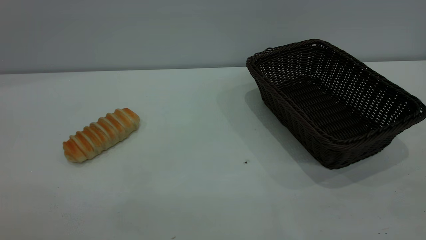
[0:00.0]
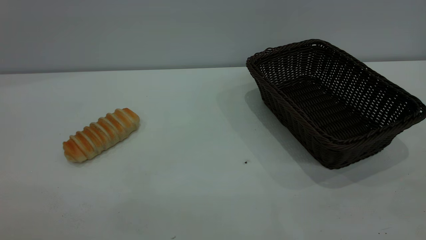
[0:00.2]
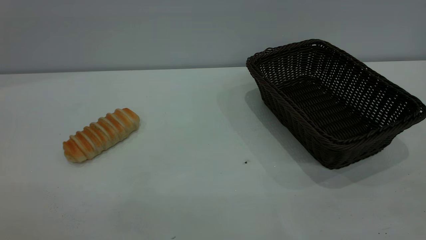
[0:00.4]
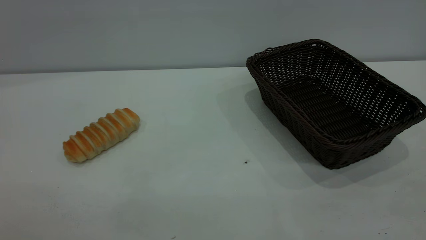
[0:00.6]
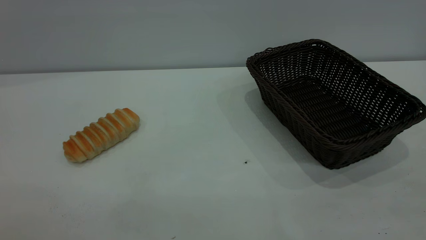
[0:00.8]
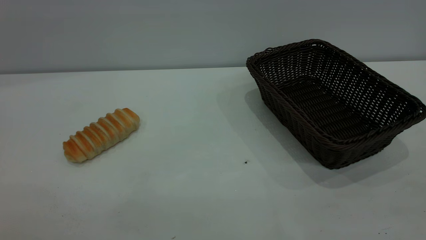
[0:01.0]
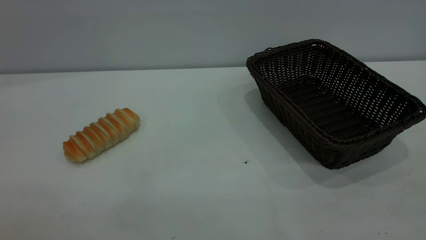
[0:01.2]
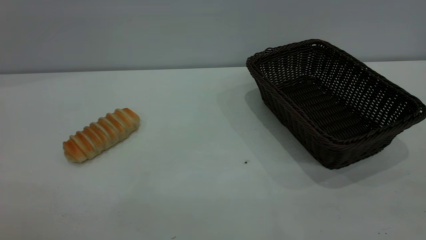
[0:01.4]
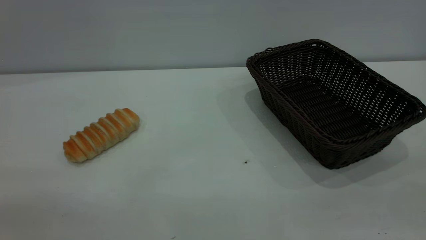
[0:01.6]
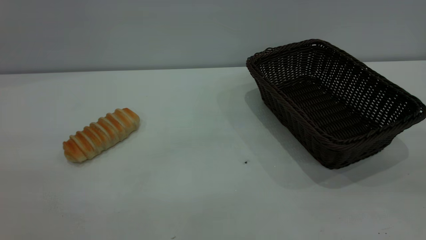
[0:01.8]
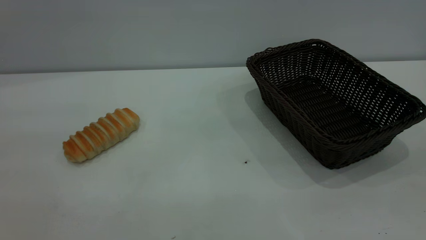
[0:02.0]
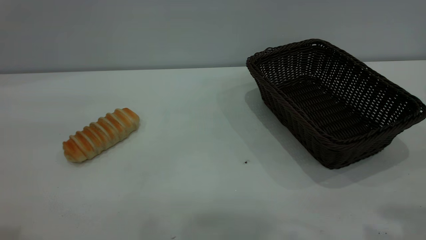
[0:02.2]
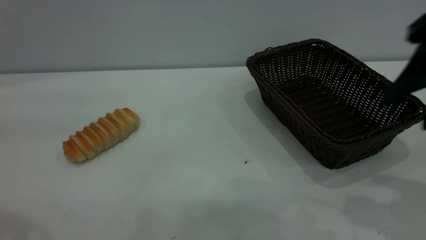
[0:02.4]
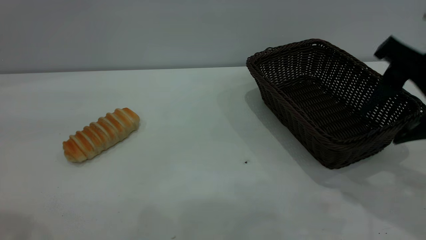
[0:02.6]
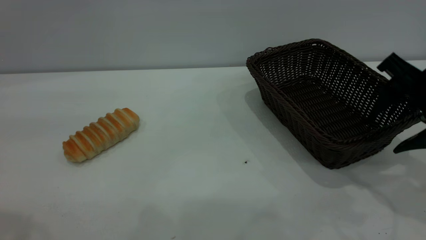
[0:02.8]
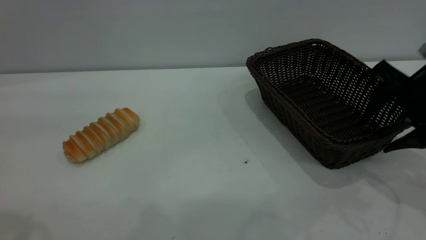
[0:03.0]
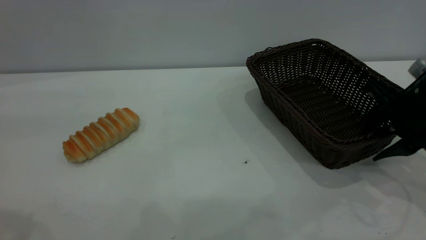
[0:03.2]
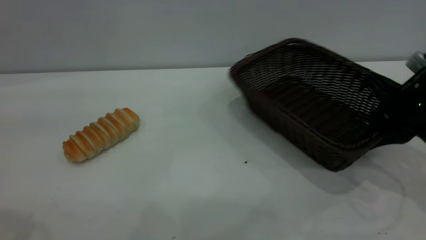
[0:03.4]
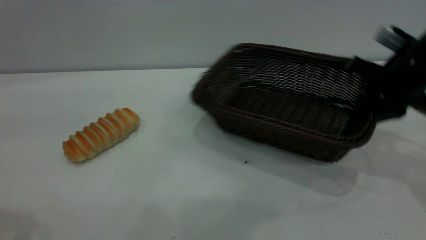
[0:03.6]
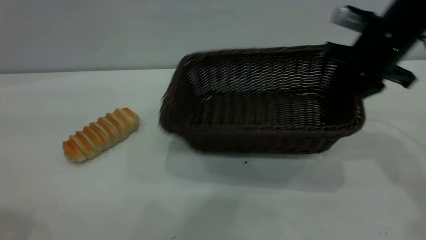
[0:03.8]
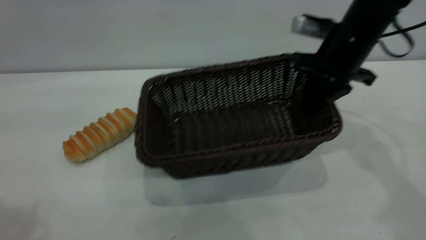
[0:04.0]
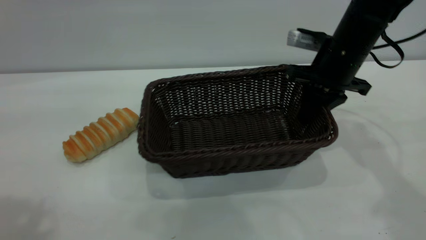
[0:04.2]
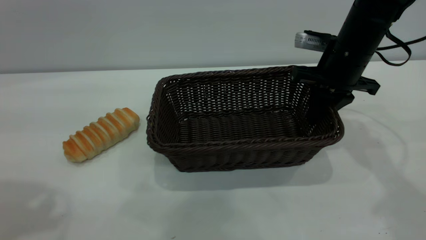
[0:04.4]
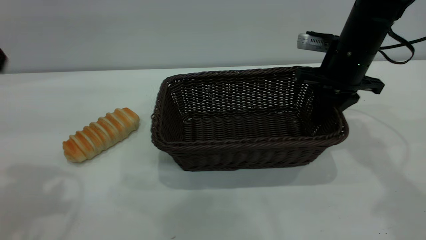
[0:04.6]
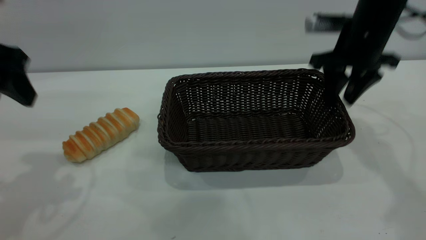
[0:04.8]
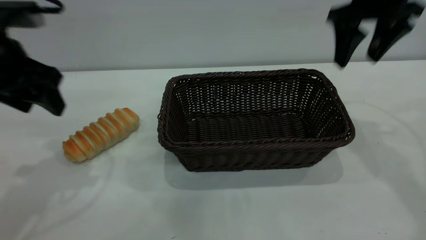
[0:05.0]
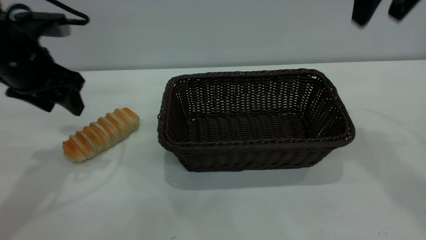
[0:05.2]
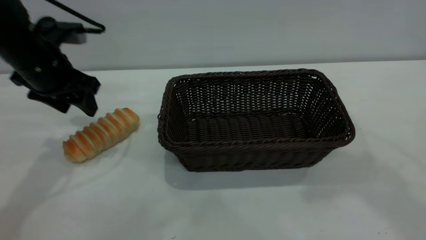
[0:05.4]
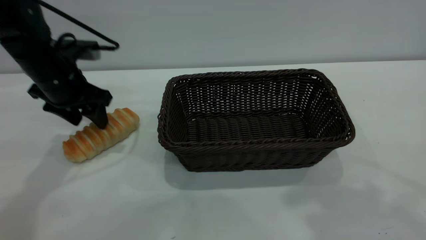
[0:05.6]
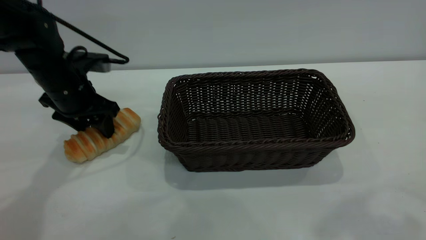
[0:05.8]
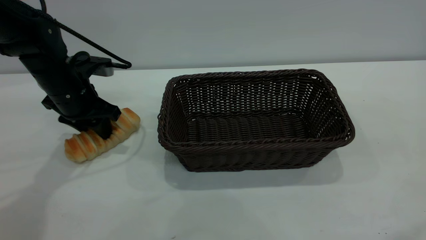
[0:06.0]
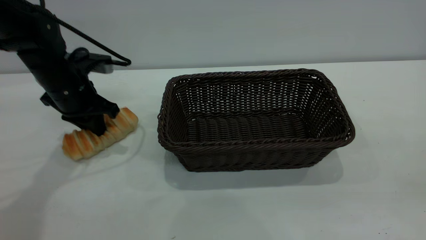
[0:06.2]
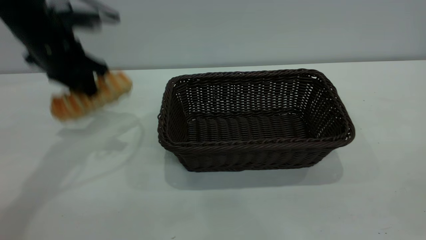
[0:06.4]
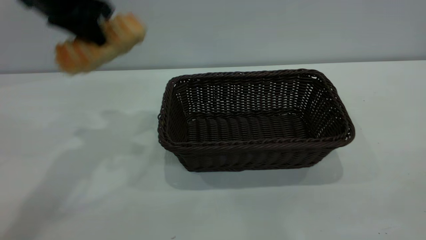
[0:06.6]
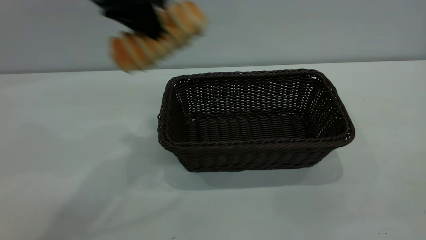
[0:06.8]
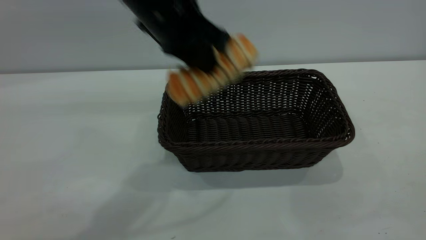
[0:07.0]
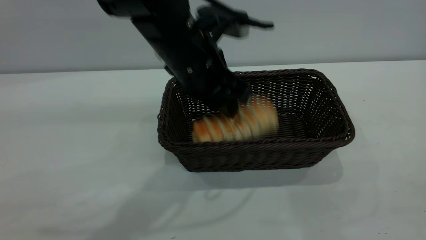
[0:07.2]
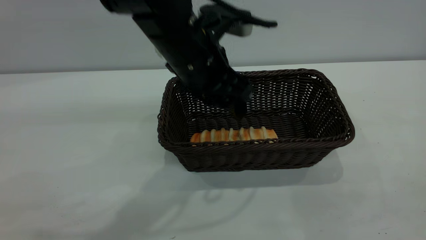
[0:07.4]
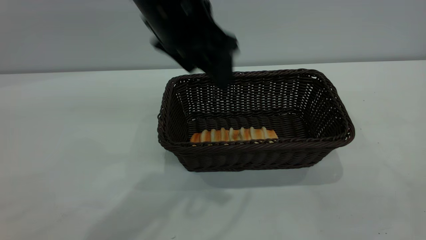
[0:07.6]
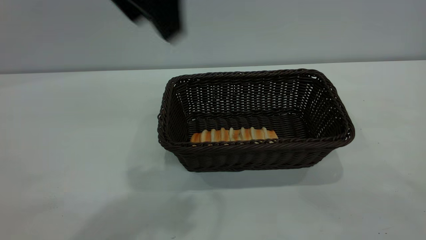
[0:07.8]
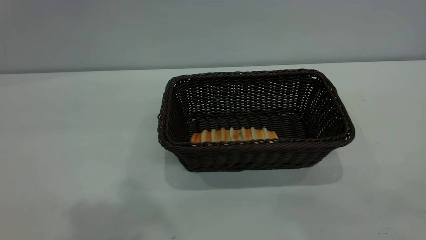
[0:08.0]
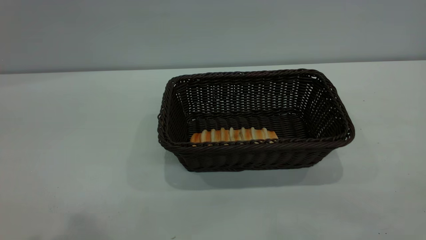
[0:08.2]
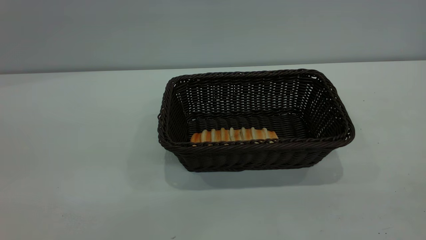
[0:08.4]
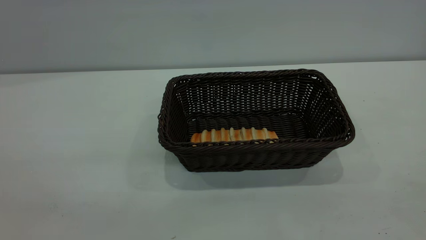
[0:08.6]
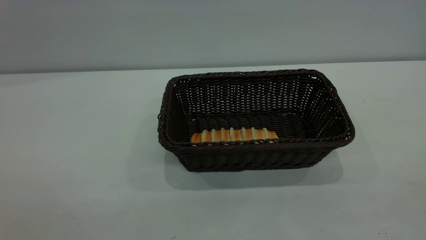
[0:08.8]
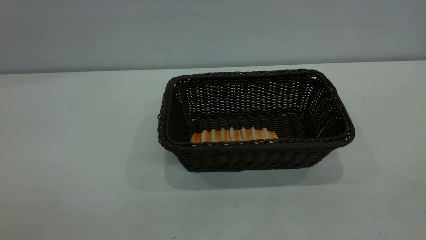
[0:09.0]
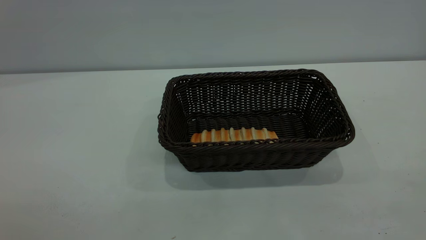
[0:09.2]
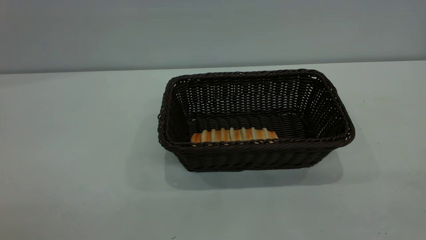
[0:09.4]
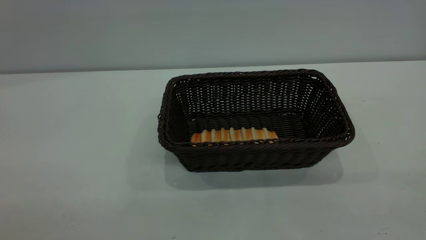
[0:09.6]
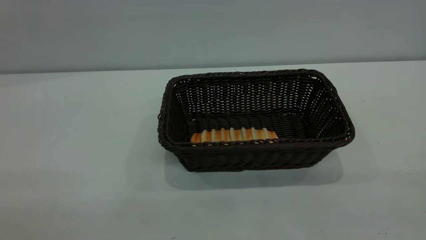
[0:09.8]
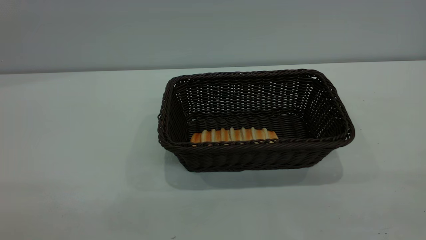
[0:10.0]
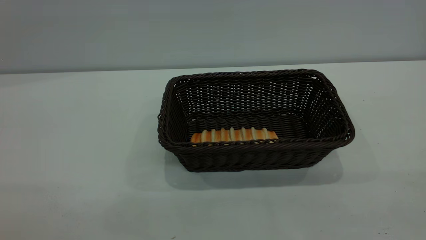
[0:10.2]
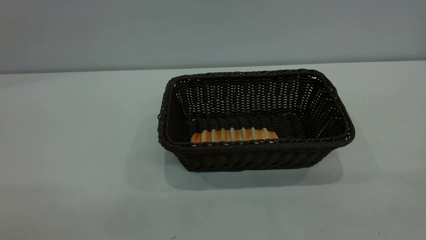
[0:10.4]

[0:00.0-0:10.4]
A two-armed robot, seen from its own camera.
Task of the whole recording: One hand grasps the black basket and places it in the middle of the table, while the other hand picks up the long bread and puts it into the black basket.
Step, 0:00.0 to 0:04.8: Move the basket to the center of view.
Step, 0:06.6 to 0:07.6: place the bread into the basket.
0:00.0 to 0:01.4: The two grippers keep their place.
0:01.4 to 0:03.0: The right gripper is displaced forward and downward by some 40 cm.
0:03.0 to 0:04.4: The right gripper heads forward and to the left, covering approximately 15 cm, and closes. The left gripper moves forward, roughly 5 cm.
0:04.4 to 0:06.0: The left gripper goes some 30 cm downward and forward, and closes its fingers. The right gripper shifts approximately 40 cm backward and upward, and opens up.
0:06.0 to 0:07.4: The left gripper is displaced to the right and upward by roughly 25 cm, and opens; the right gripper shifts about 15 cm backward and to the right.
0:07.4 to 0:09.0: The left gripper goes approximately 40 cm backward and to the left.
